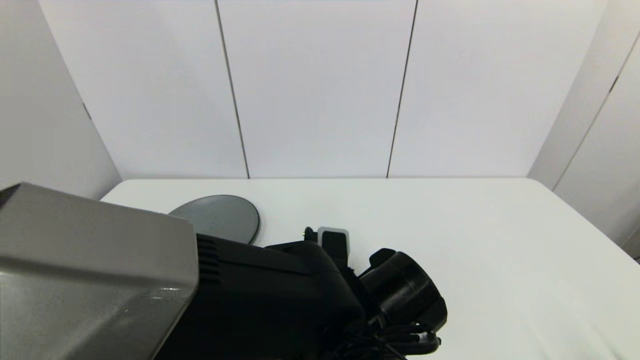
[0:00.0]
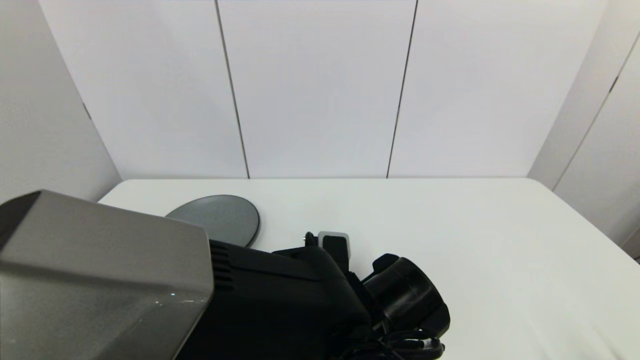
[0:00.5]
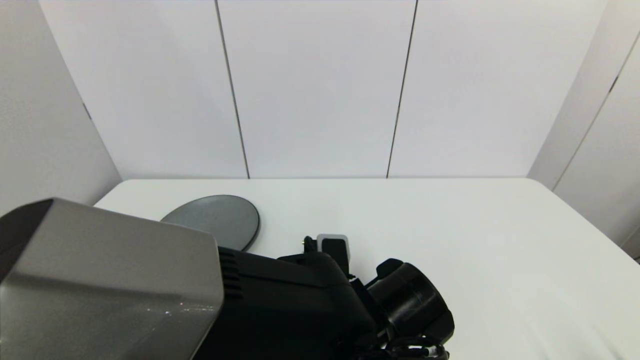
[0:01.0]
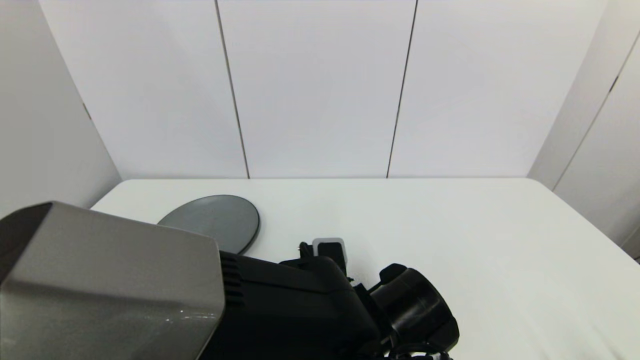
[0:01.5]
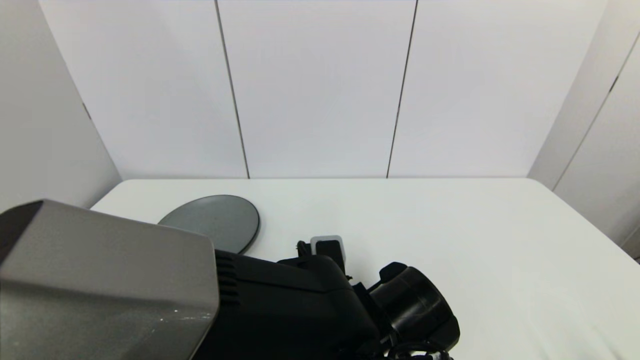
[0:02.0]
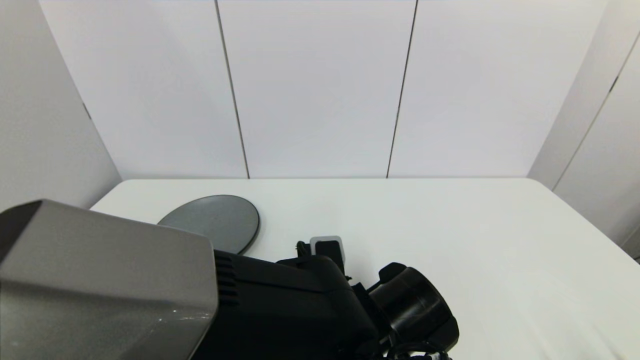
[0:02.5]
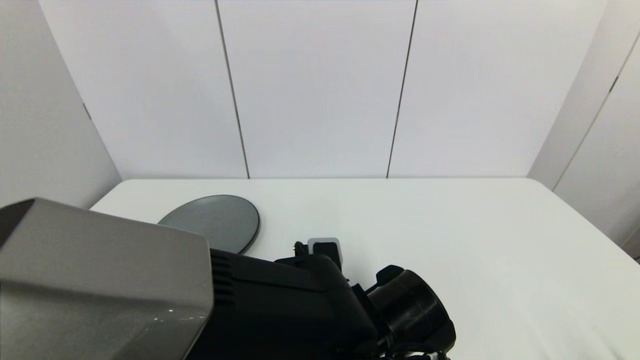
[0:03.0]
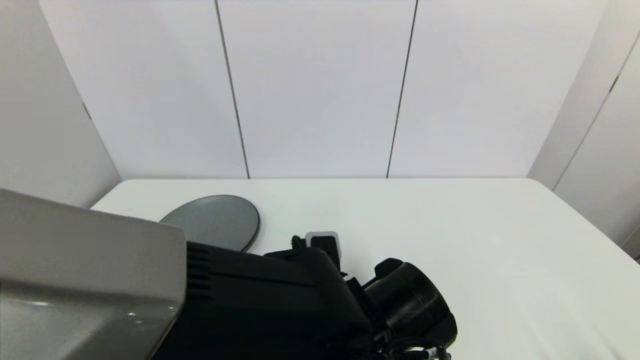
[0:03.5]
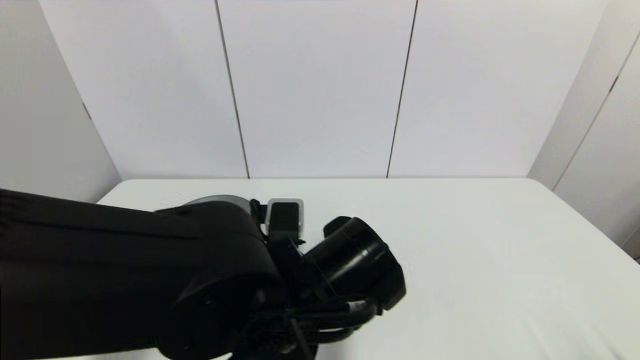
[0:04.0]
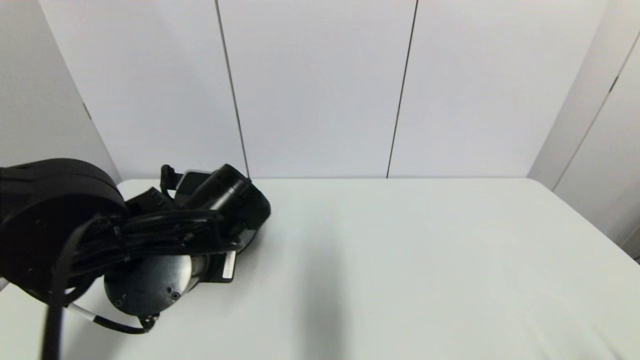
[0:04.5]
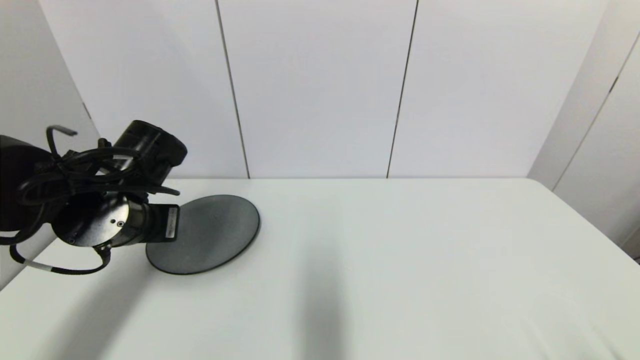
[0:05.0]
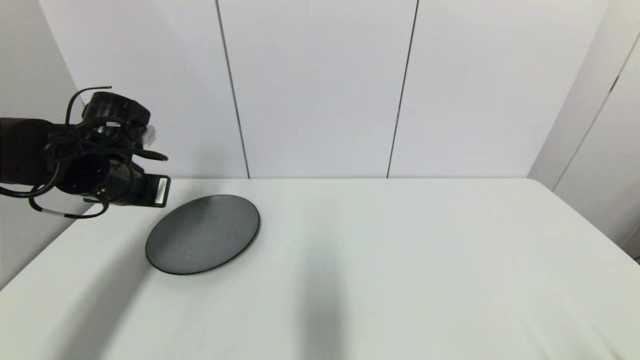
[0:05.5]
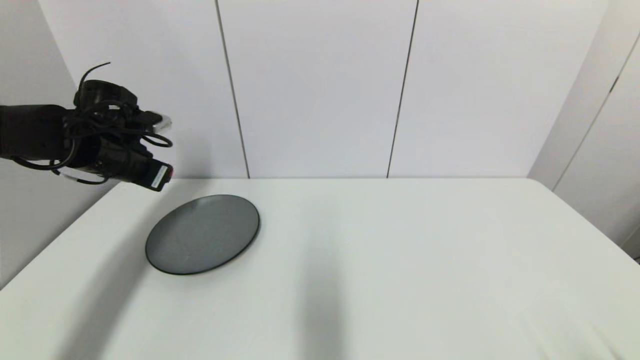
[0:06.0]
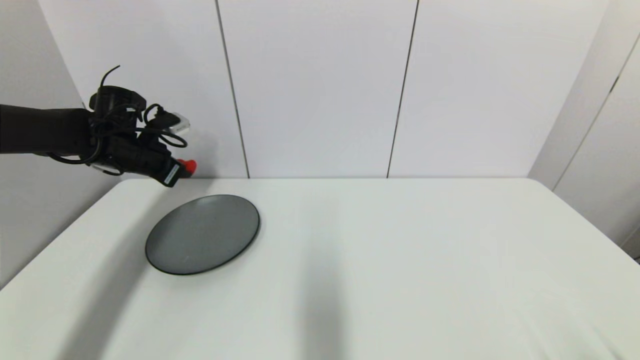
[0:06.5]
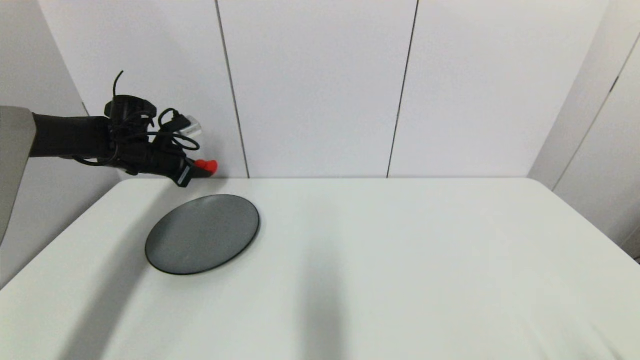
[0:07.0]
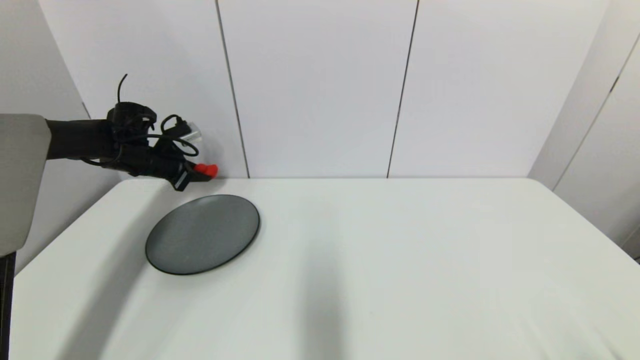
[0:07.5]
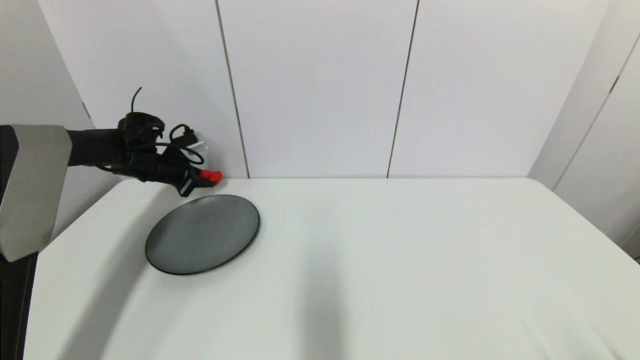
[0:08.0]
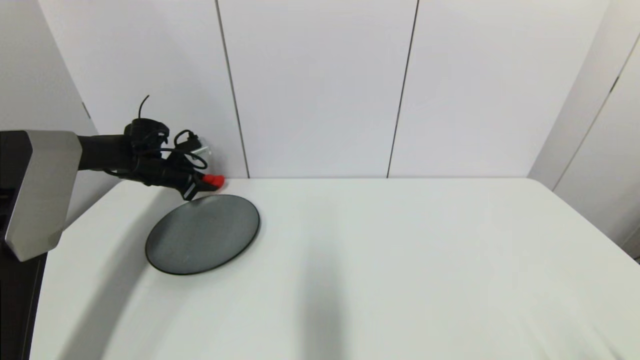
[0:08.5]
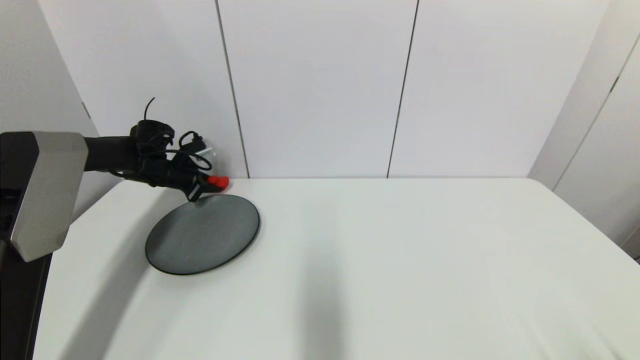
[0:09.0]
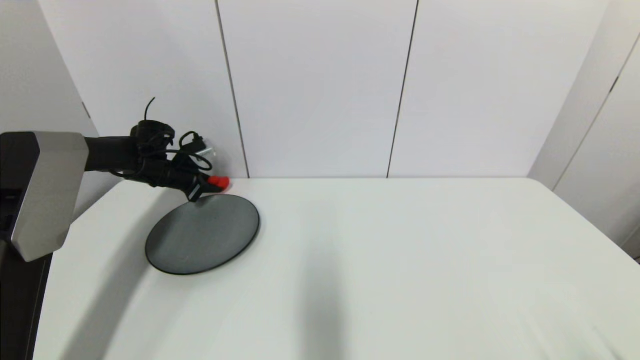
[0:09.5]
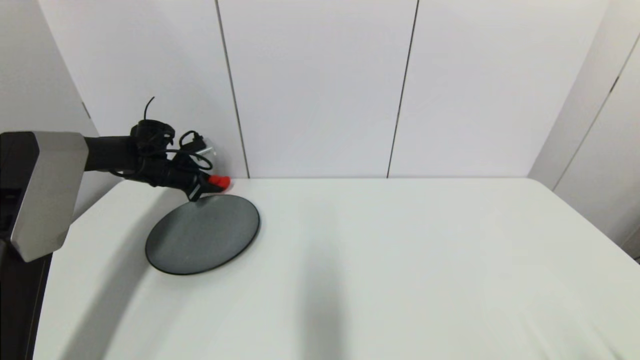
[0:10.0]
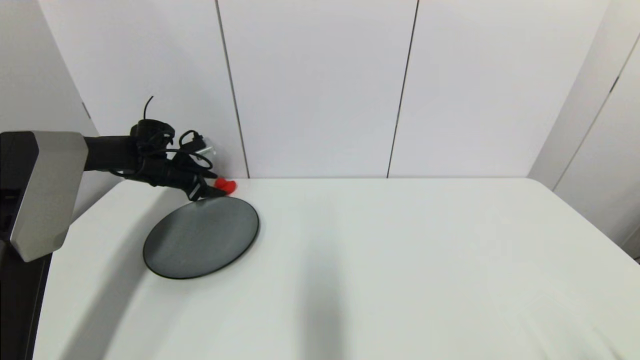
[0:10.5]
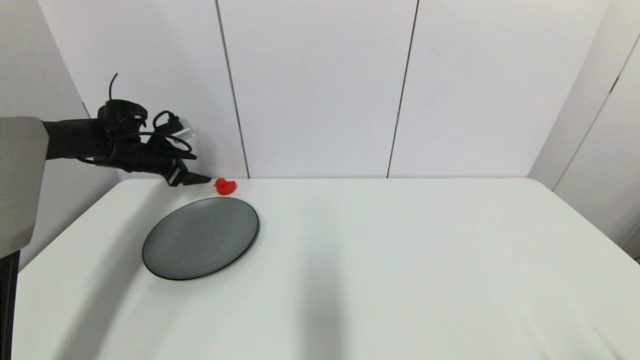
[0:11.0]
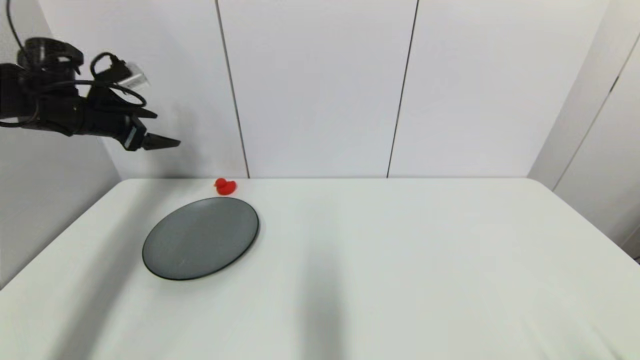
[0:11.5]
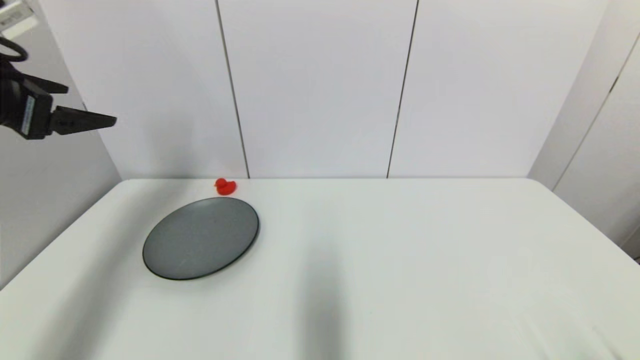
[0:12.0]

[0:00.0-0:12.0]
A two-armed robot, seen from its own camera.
Step, 0:00.0 to 0:03.5: Grasp the red duck with left gripper.
Step, 0:04.0 to 0:10.5: Place the red duck on the table with left gripper.
0:00.0 to 0:02.0: The grippers make only small movements.
0:02.0 to 0:04.0: The left gripper travels upward and to the left by approximately 10 cm, and closes.
0:04.0 to 0:06.0: The left gripper moves to the left and forward, roughly 35 cm.
0:06.0 to 0:08.0: The left gripper goes about 15 cm forward and downward.
0:08.0 to 0:10.0: The grippers make only small movements.
0:10.0 to 0:12.0: The left gripper goes approximately 35 cm backward and upward, and opens.

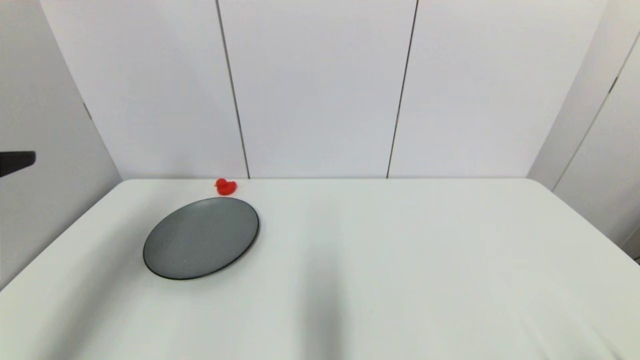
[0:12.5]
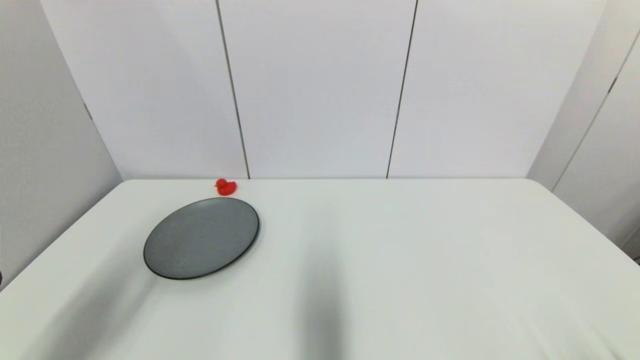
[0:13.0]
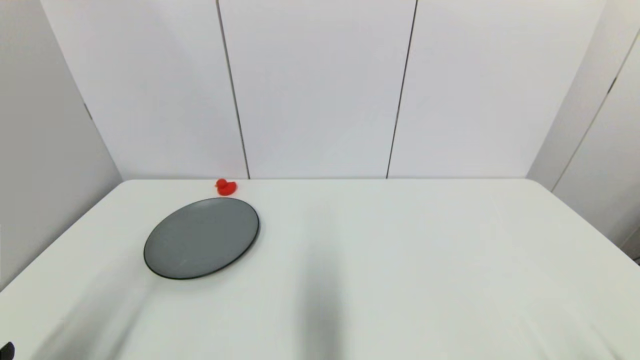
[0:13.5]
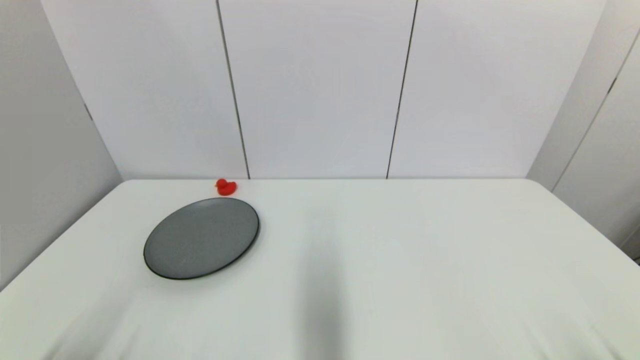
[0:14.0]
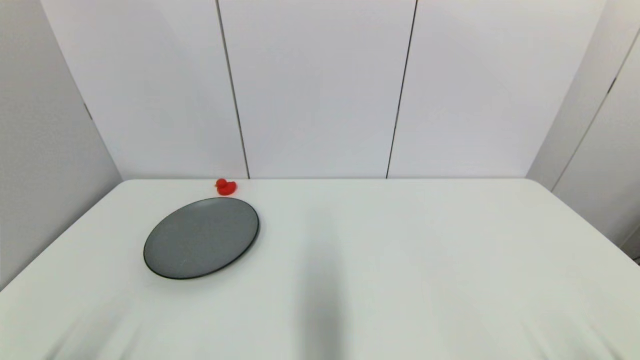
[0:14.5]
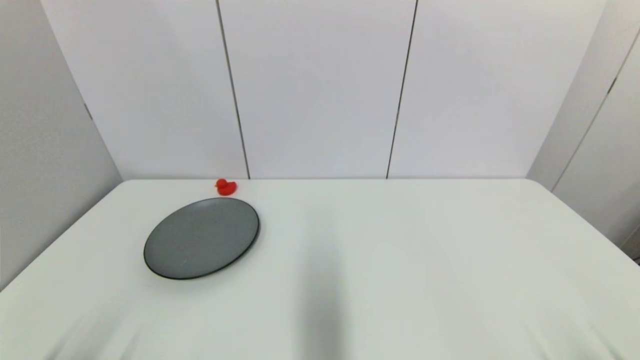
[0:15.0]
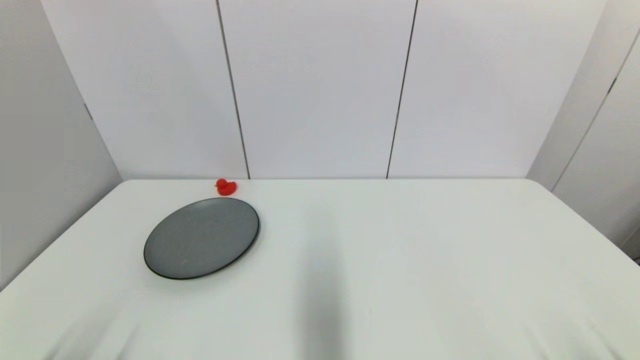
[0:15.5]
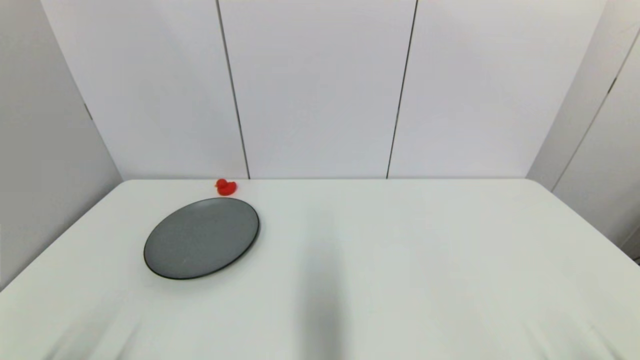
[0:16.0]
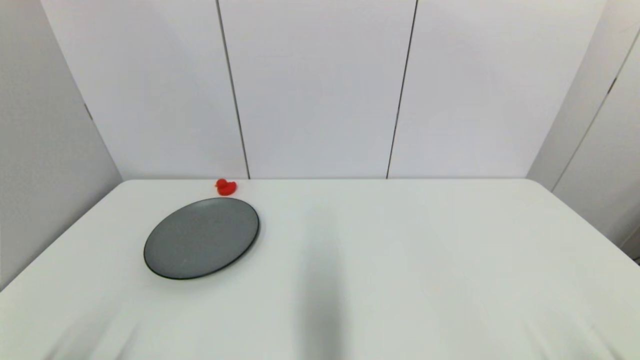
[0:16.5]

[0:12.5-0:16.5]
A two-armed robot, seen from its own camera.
0:12.5 to 0:14.5: The left gripper travels downward and backward by approximately 25 cm.
